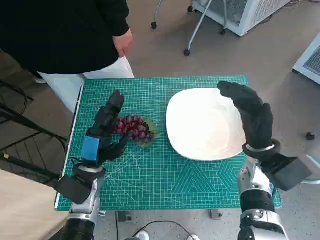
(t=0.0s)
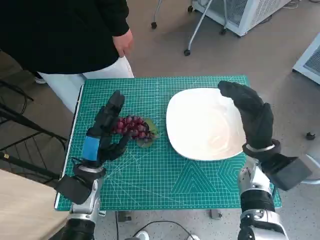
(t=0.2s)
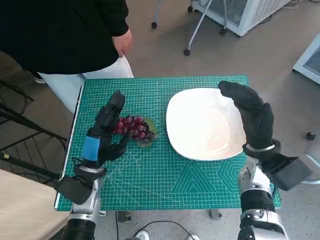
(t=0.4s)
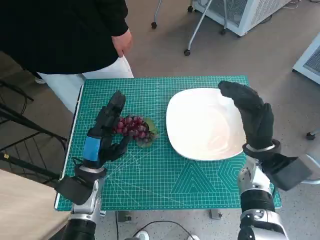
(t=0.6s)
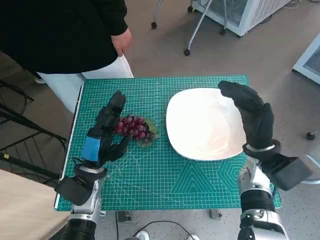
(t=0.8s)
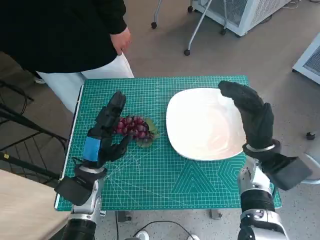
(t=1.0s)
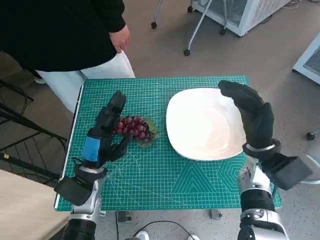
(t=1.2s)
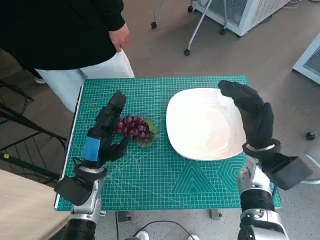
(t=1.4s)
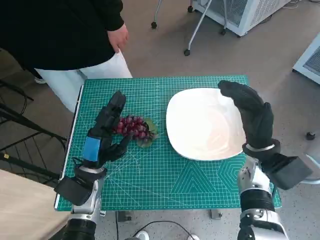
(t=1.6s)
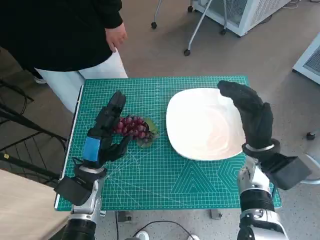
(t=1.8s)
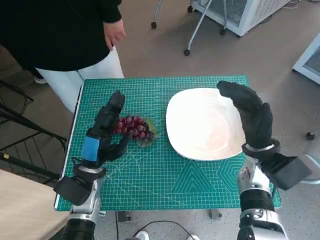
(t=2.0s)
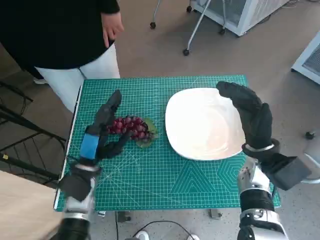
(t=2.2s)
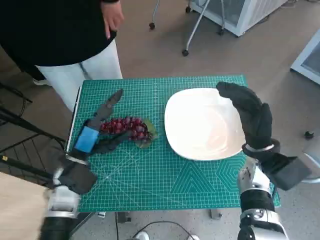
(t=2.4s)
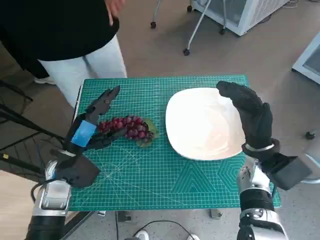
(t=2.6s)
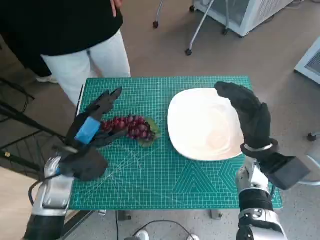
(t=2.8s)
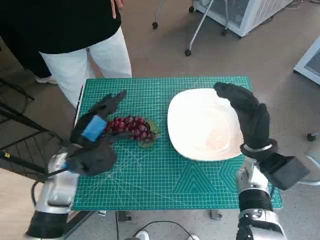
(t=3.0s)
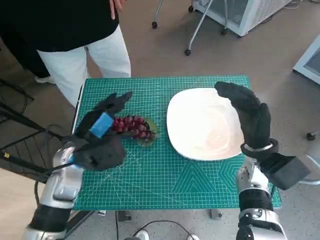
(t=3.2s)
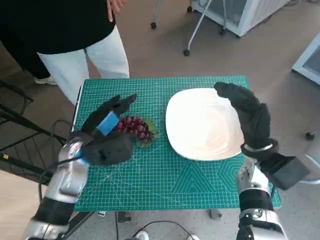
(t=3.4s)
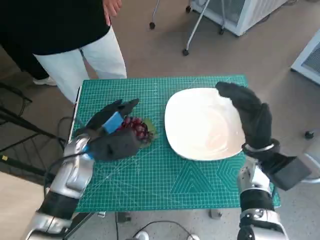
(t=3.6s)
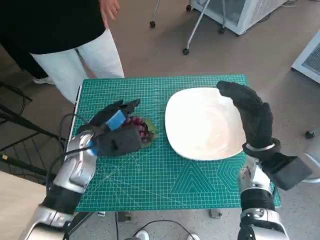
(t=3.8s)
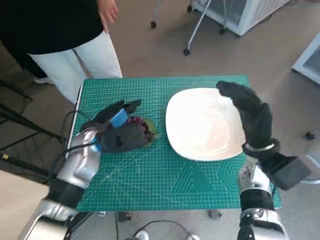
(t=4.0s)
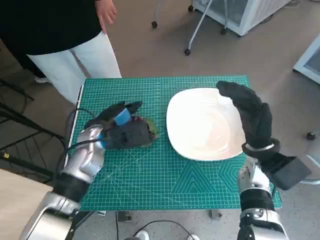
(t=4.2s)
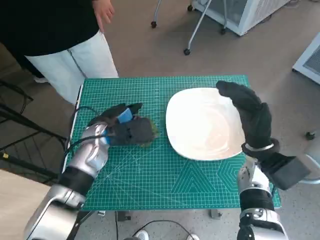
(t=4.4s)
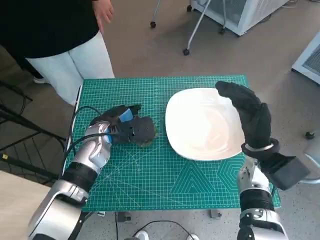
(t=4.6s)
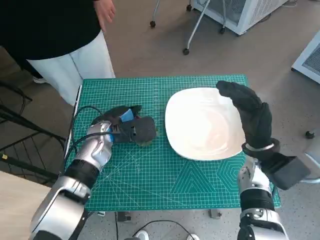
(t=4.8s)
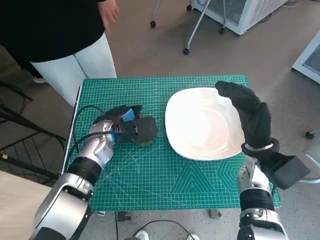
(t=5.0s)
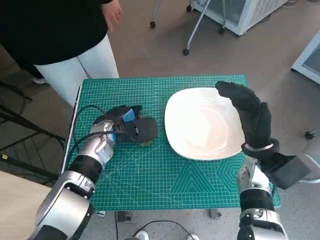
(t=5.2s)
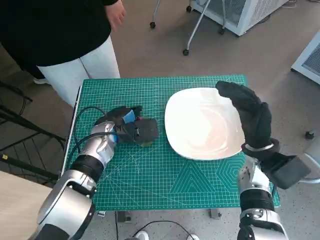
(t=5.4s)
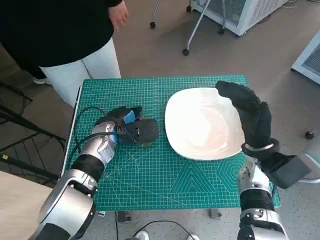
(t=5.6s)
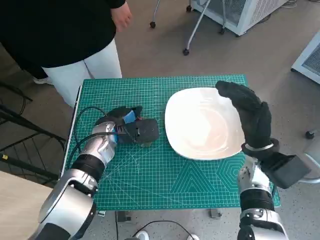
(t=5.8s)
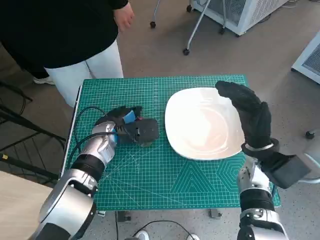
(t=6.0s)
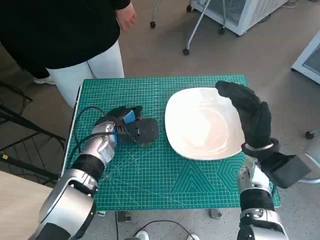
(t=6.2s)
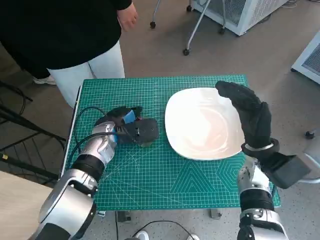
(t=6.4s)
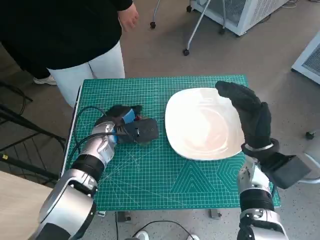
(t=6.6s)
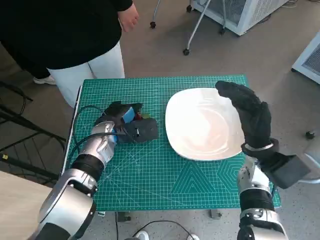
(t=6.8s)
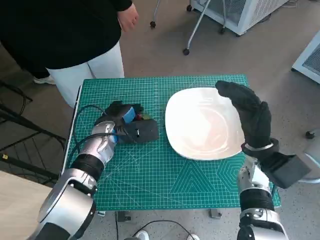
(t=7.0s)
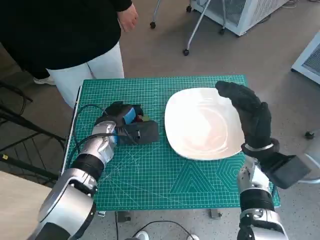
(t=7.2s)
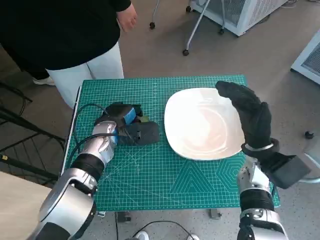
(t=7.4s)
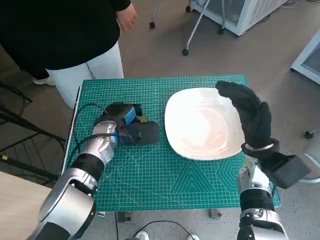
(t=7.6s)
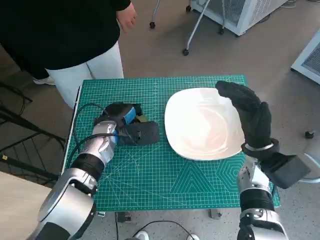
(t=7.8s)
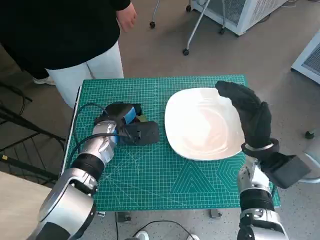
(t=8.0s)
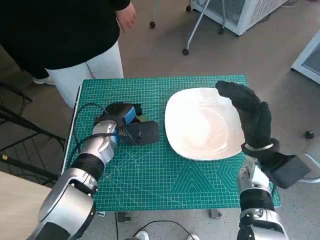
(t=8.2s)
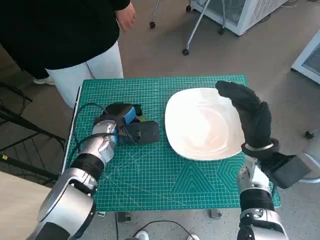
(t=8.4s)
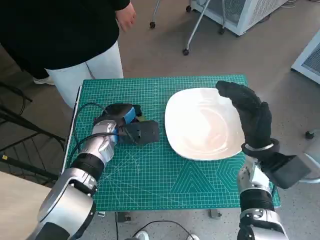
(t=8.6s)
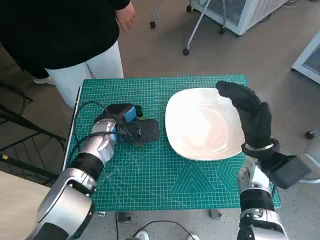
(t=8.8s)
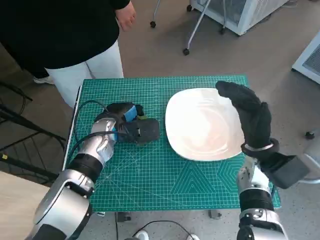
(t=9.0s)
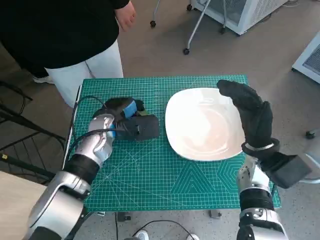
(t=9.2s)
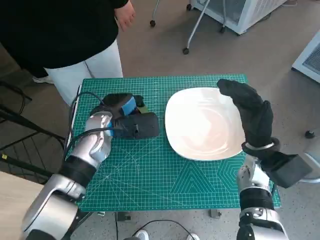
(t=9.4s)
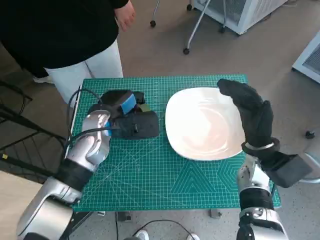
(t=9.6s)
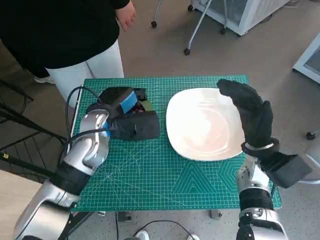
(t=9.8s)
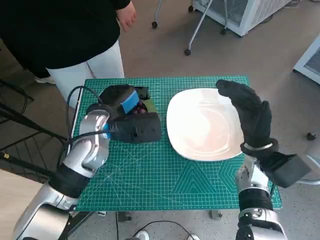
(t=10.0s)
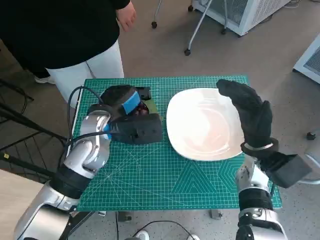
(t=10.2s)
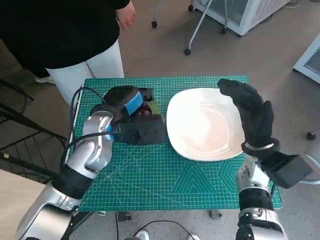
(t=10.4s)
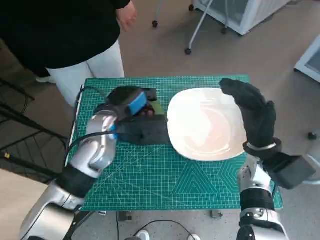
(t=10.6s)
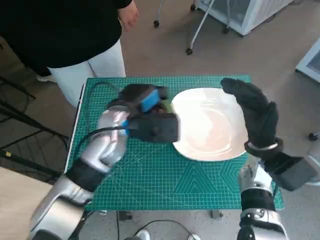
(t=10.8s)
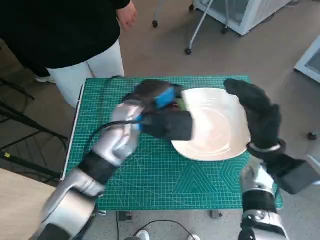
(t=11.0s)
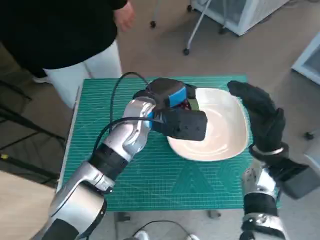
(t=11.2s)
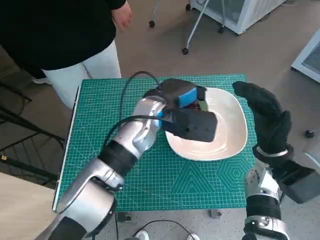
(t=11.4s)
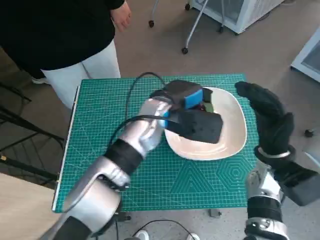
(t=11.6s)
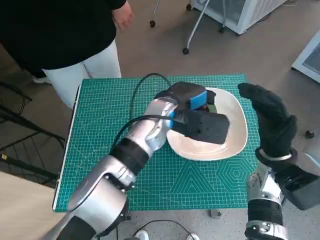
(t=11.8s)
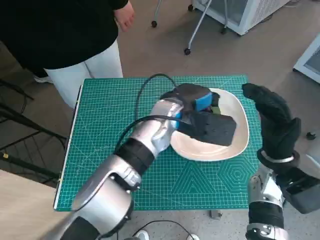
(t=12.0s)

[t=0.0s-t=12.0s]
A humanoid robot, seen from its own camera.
Task of the whole recording: Pick up the grapes and put them on the plate.
Step, t=0.0s to t=7.8s: Grasp the grapes with left hand.
t=1.6s to t=3.0s: The left hand moves upward, about 5 cm.
t=3.0s to t=4.4s: The left hand moves forward, some 5 cm.
t=4.4s to t=7.6s: There are only small adjustments of the hands.
t=7.6s to t=9.0s: Both hands stay put.
t=9.0s to t=10.4s: The left hand shifts some 5 cm upward.
t=10.4s to t=12.0s: The left hand is displaced to the right by roughly 15 cm.

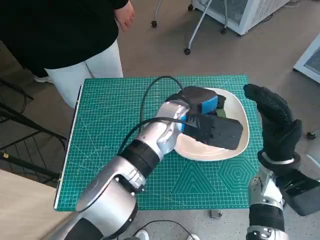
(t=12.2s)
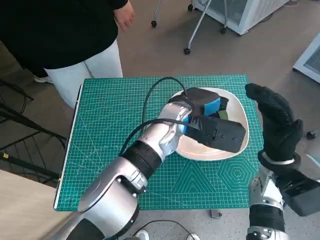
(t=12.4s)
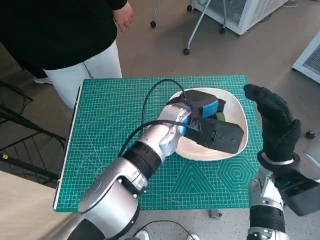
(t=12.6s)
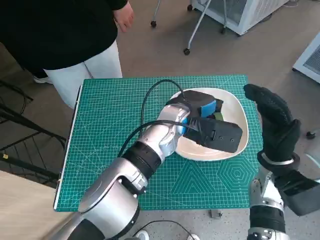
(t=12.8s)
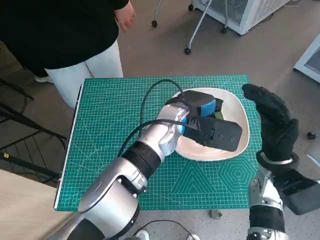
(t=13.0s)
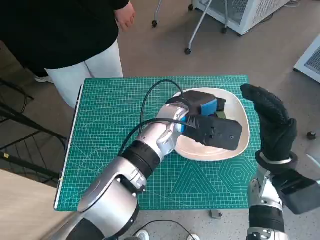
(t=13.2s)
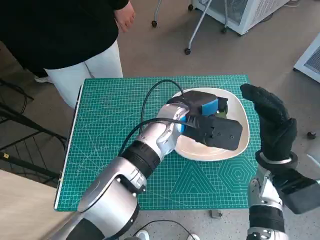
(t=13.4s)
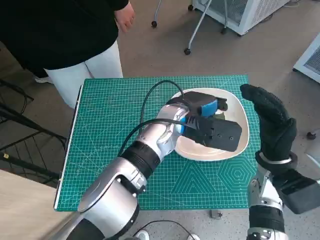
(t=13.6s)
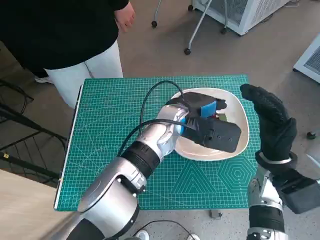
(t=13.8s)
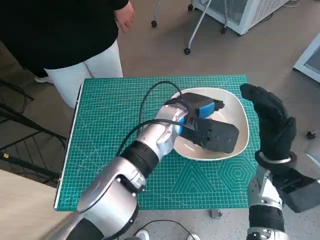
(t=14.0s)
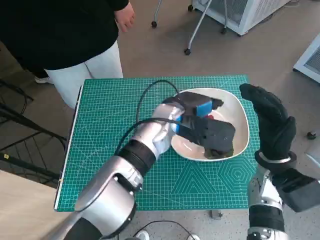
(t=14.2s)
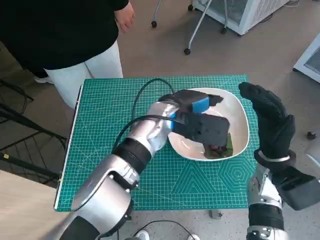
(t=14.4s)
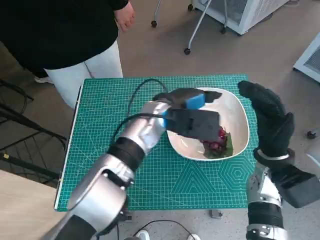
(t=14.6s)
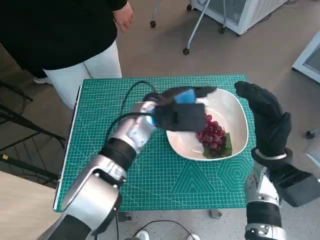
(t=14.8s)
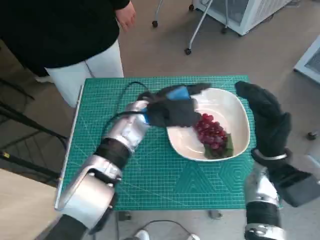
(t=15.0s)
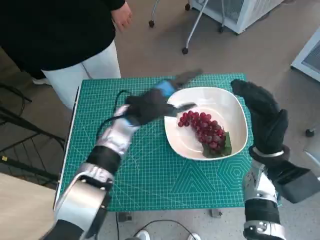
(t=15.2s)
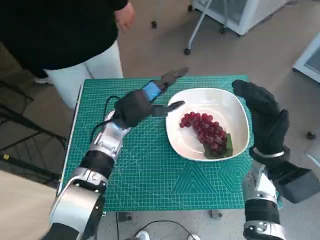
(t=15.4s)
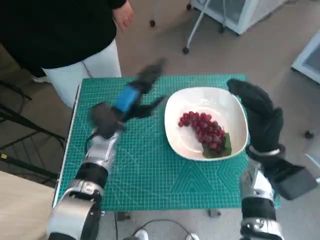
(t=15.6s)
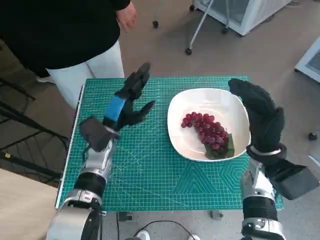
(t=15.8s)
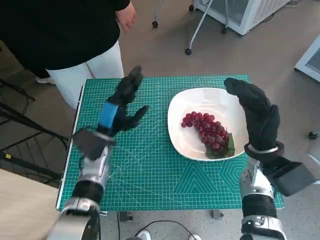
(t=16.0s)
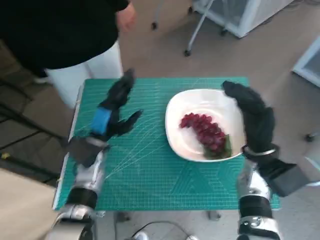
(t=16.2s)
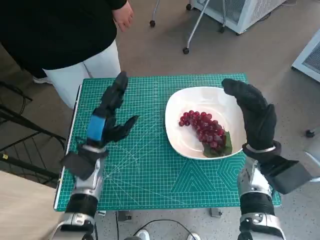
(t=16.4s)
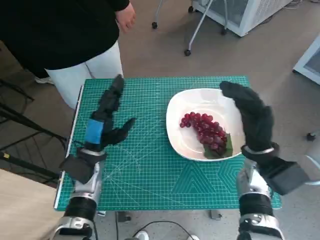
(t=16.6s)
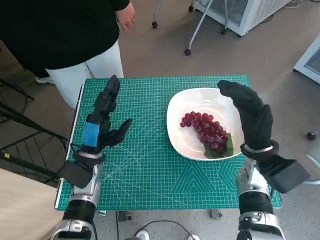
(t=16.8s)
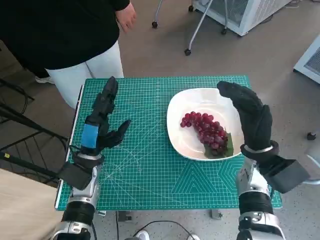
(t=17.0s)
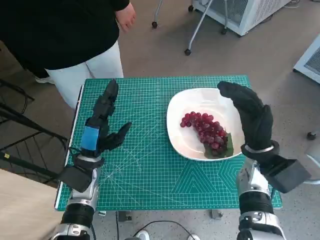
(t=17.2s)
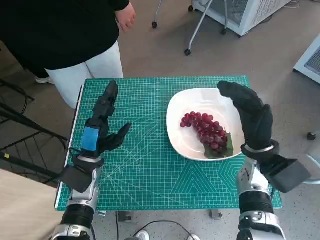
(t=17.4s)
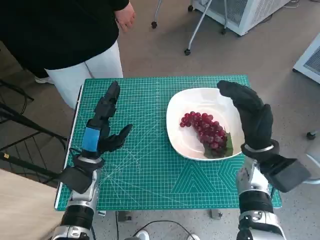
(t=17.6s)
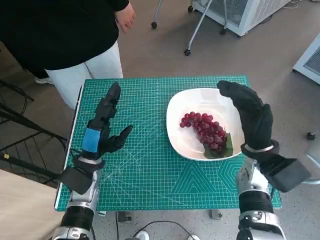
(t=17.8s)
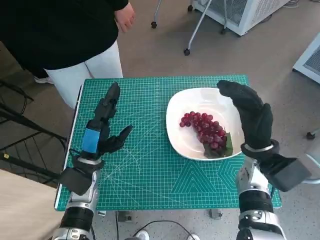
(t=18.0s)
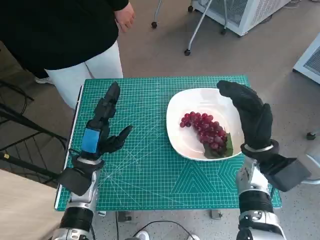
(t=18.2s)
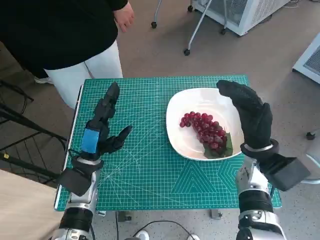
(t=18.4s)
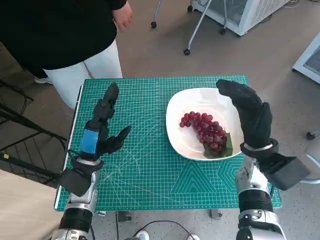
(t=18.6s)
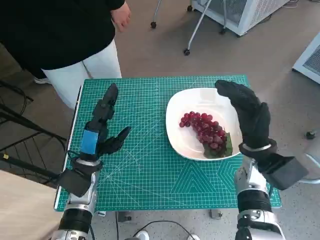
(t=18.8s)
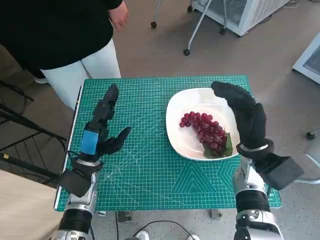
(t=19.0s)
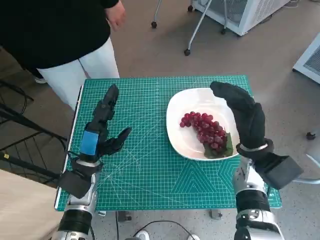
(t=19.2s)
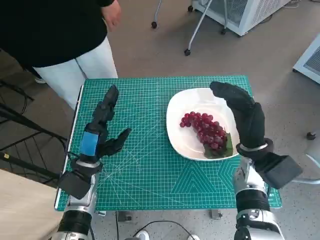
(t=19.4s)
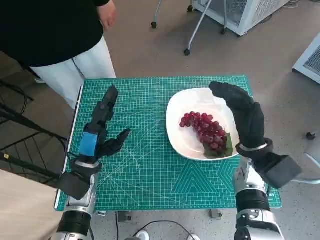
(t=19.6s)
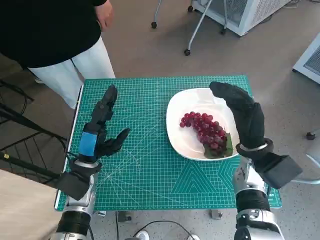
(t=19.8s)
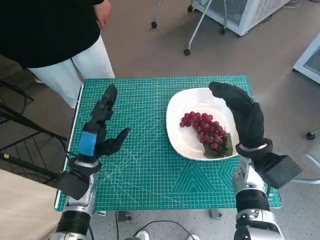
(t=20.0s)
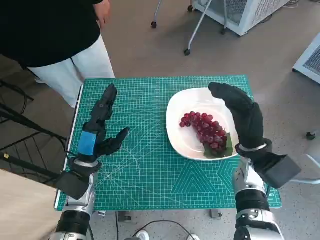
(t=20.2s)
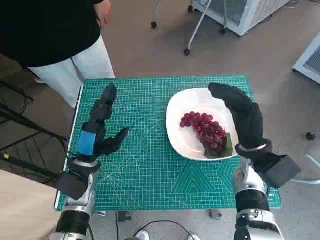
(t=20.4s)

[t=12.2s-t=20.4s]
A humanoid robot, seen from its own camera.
Task of the whole recording: Pick up the grapes and put them on the plate.
t=12.2s to t=13.8s: The two hands keep their place.
t=13.8s to t=15.4s: The left hand travels to the left by about 10 cm.
t=15.4s to t=17.2s: The left hand shifts roughly 15 cm backward, to the left and downward.
t=17.2s to t=20.4s: Both hands stay about where they are.
